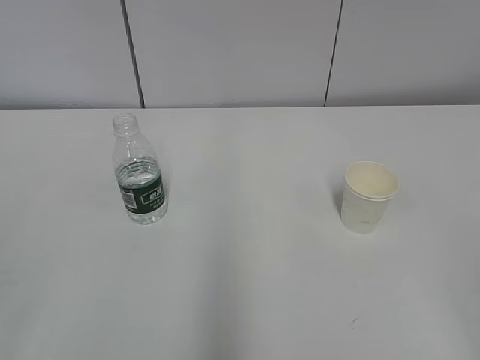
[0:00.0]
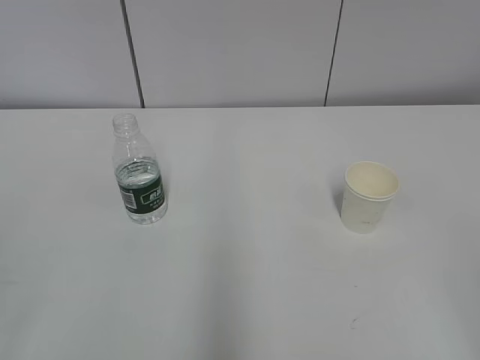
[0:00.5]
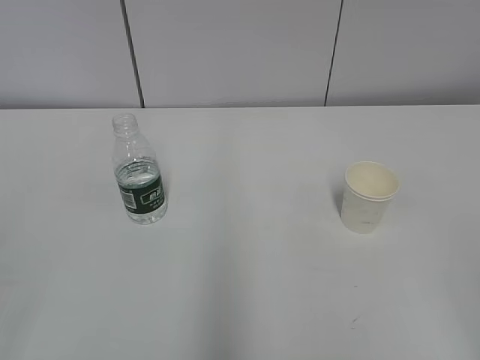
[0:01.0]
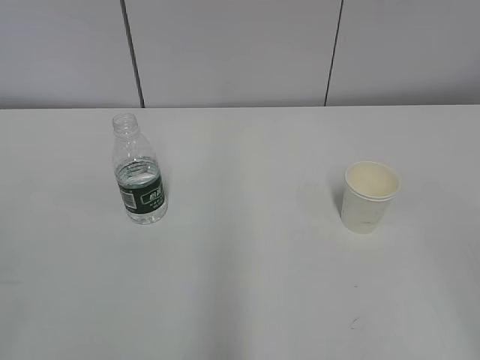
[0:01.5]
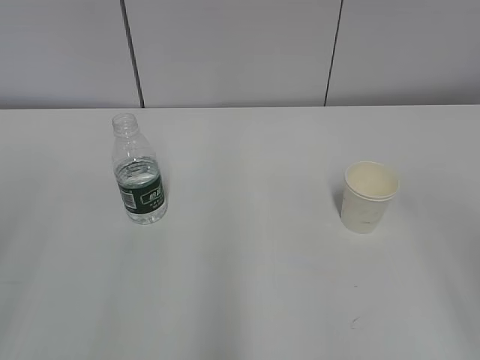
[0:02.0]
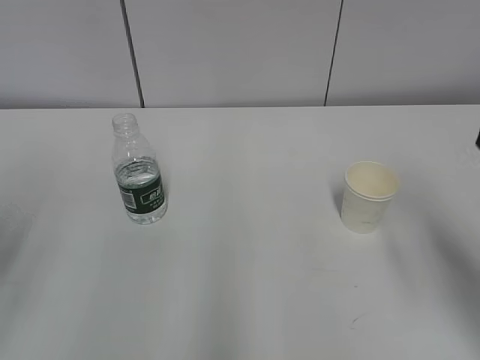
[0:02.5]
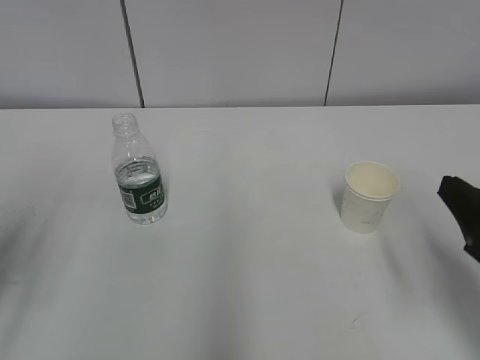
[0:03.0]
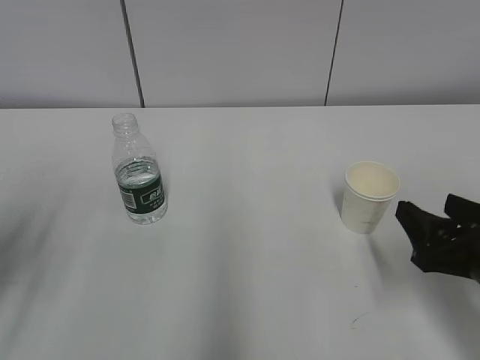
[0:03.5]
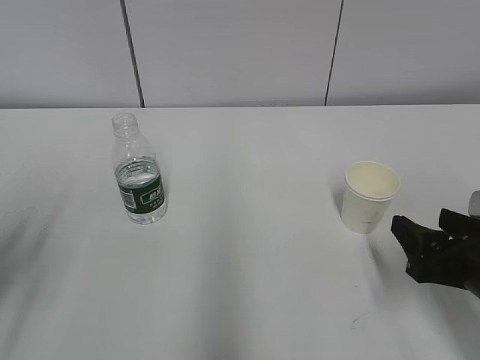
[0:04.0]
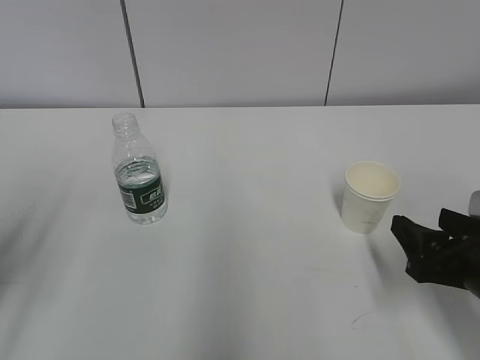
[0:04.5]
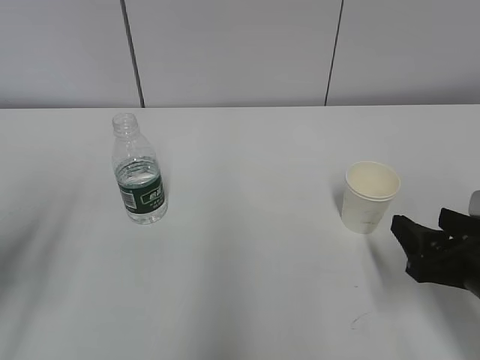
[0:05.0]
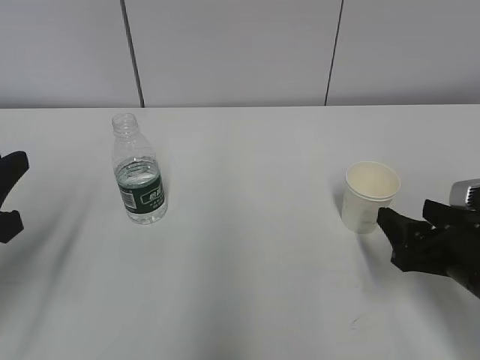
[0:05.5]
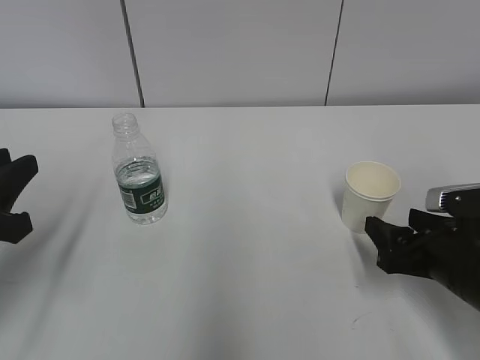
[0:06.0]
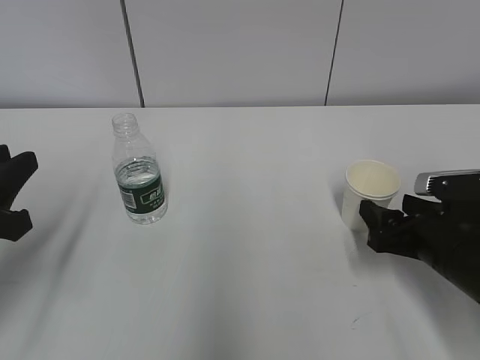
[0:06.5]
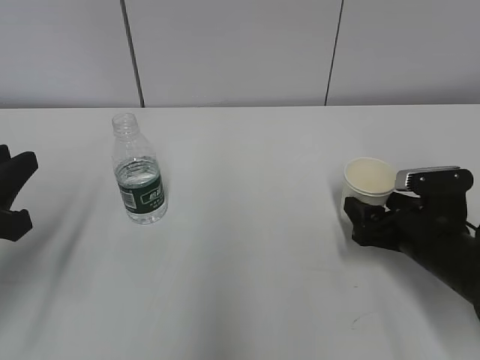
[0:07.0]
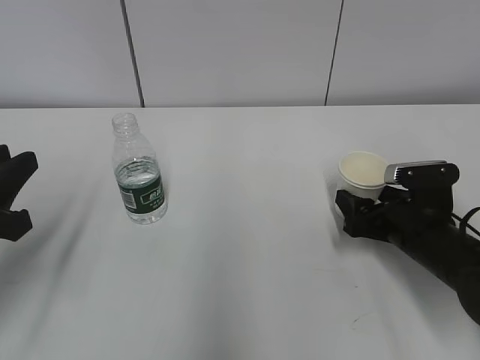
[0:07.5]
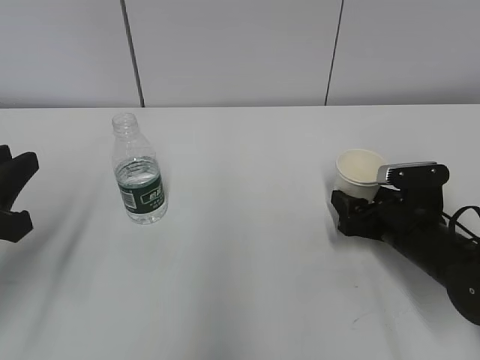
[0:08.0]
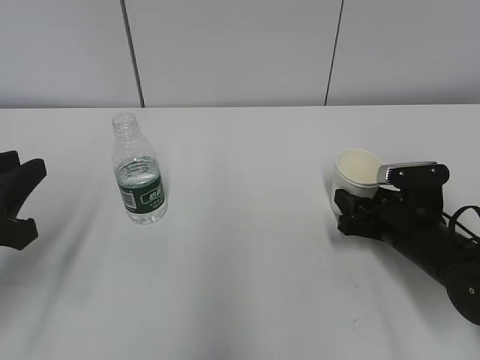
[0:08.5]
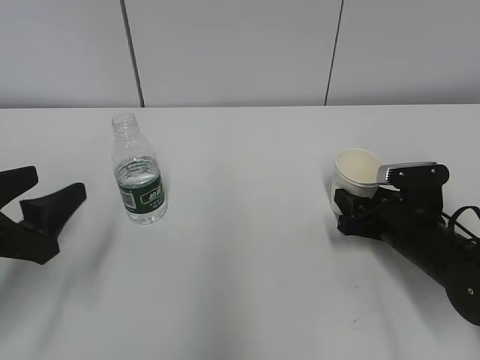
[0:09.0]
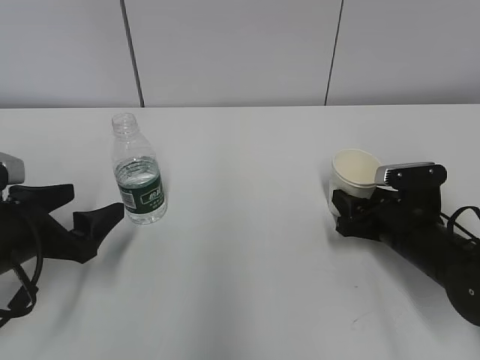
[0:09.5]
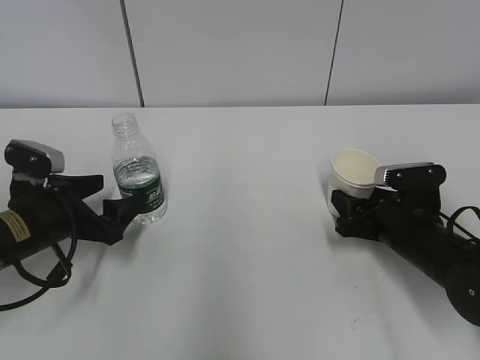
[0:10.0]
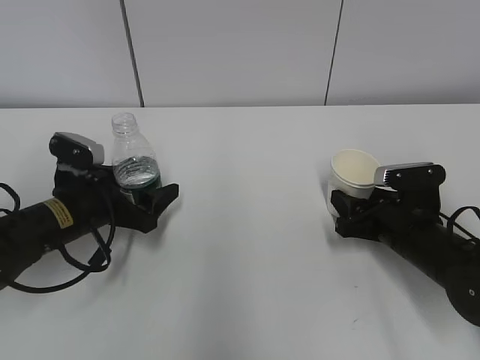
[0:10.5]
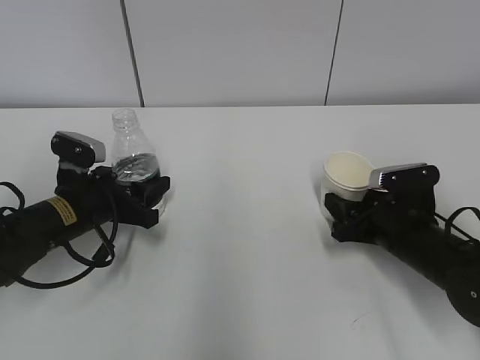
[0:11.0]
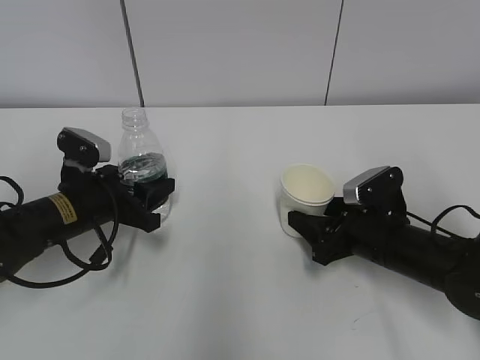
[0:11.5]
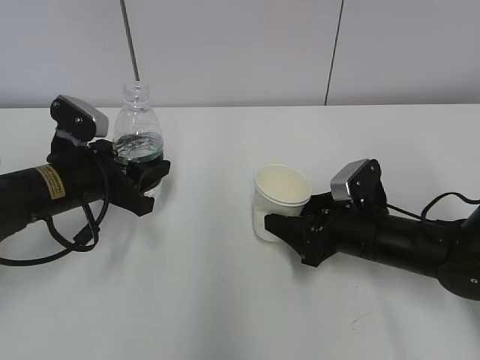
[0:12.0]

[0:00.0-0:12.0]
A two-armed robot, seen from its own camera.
Step, 0:00.0 to 0:09.5: Grab the water bottle with the left hand.
0:02.0 to 0:04.0: The right gripper shifts roughly 25 cm downward and forward; the left gripper travels forward and downward by approximately 15 cm.
0:04.0 to 0:06.0: The grippers stay close to where they were, moving slightly.
0:06.0 to 0:08.0: The right gripper travels forward by some 10 cm.
0:08.0 to 0:10.0: The left gripper is displaced forward and downward by about 15 cm, and opens its fingers. The right gripper closes up.
0:10.0 to 0:12.0: The right gripper travels to the left by about 5 cm. The left gripper shifts by roughly 5 cm, and closes up.

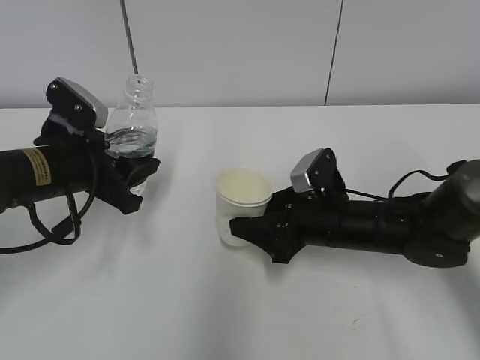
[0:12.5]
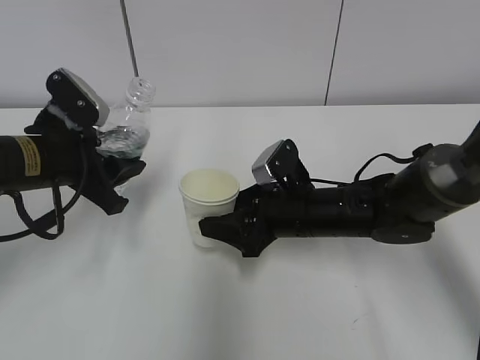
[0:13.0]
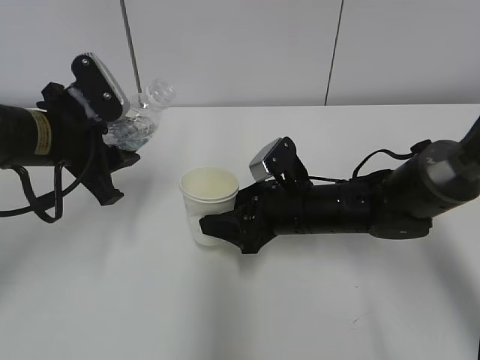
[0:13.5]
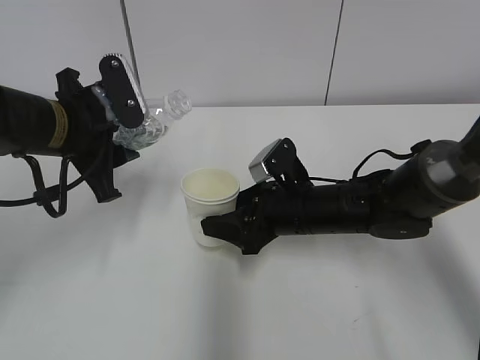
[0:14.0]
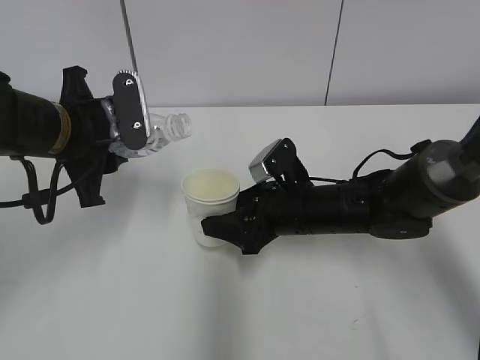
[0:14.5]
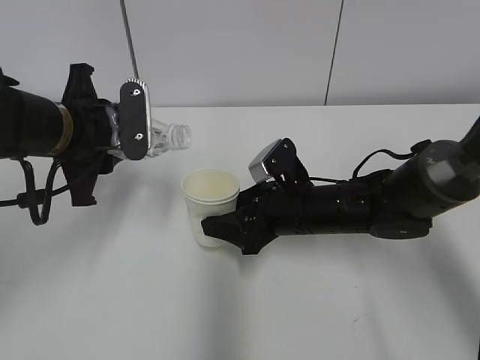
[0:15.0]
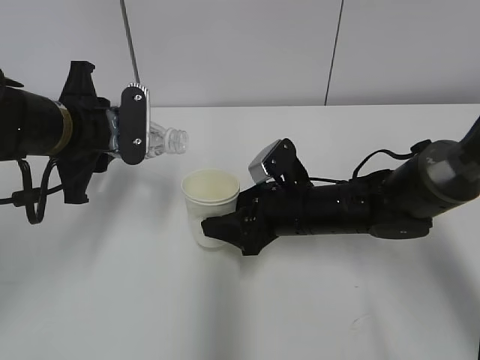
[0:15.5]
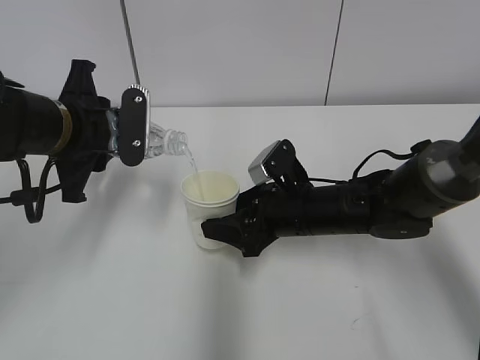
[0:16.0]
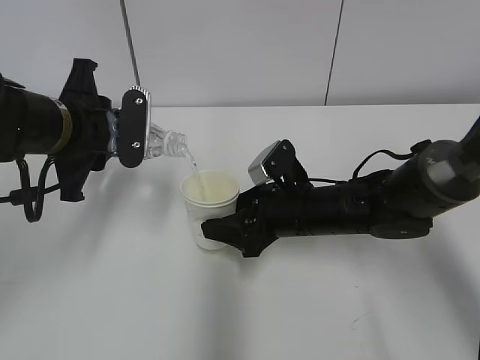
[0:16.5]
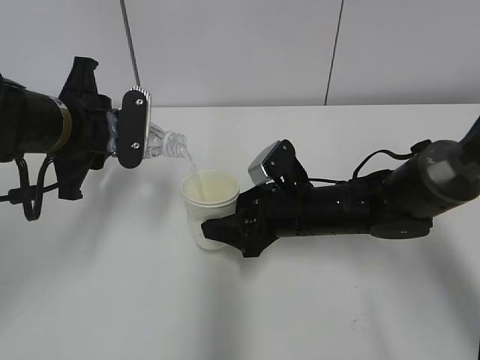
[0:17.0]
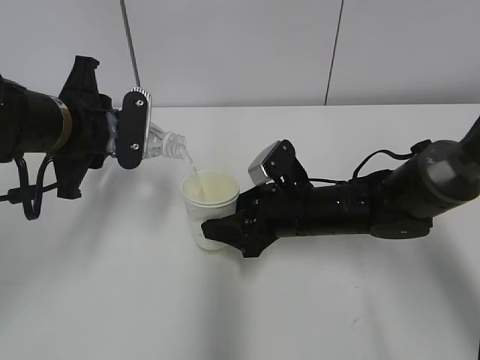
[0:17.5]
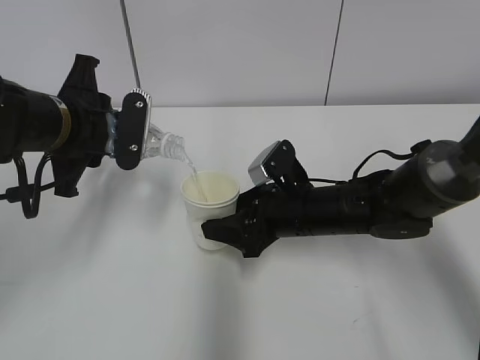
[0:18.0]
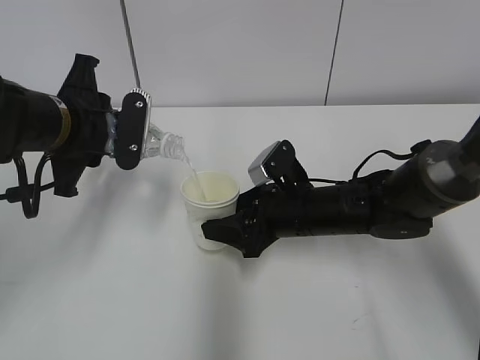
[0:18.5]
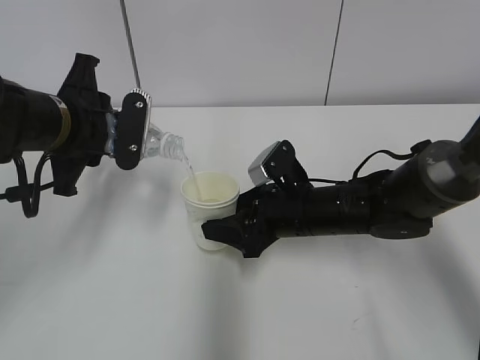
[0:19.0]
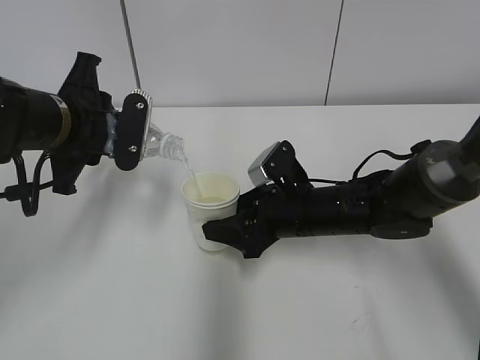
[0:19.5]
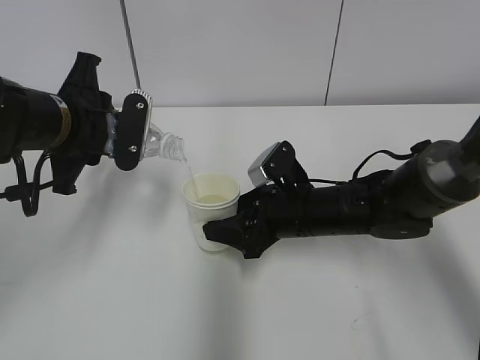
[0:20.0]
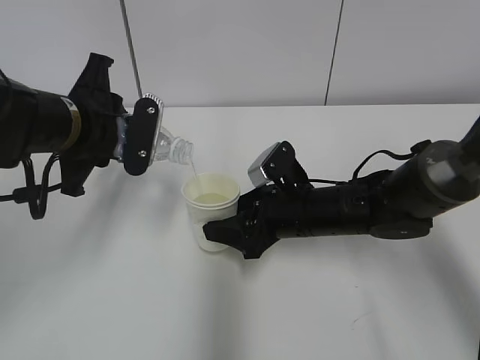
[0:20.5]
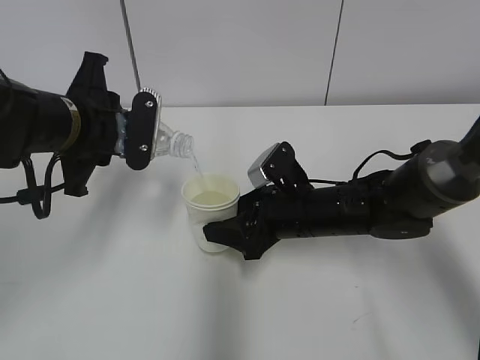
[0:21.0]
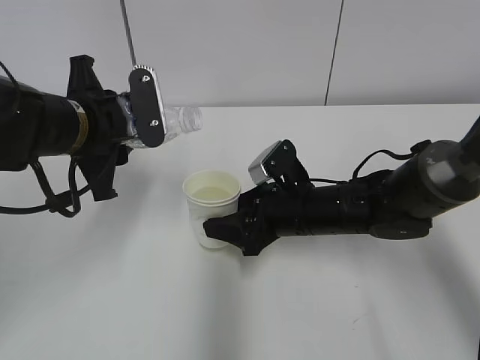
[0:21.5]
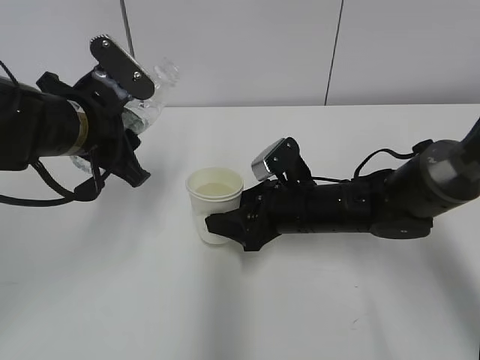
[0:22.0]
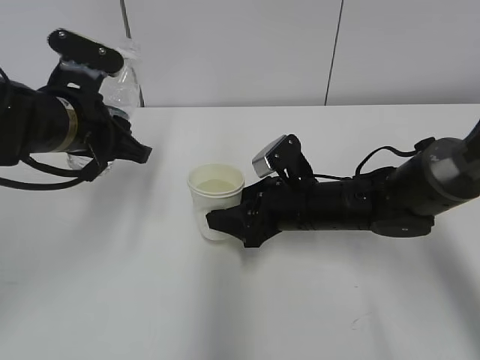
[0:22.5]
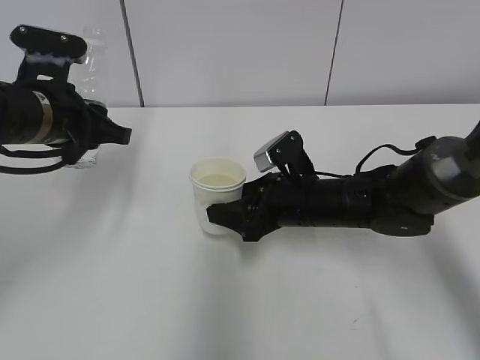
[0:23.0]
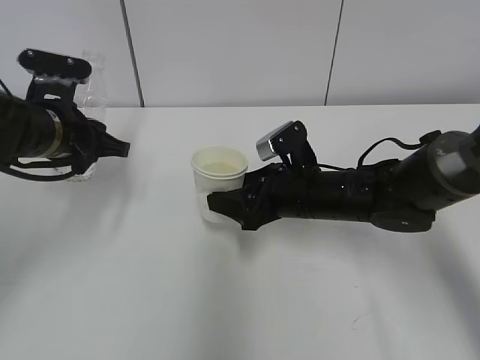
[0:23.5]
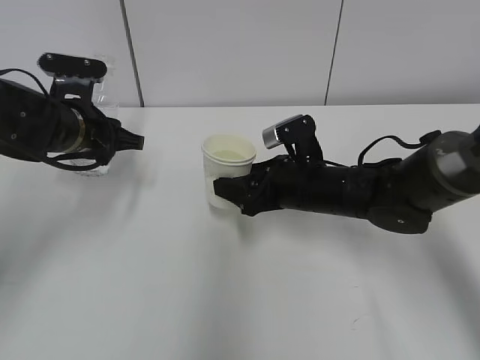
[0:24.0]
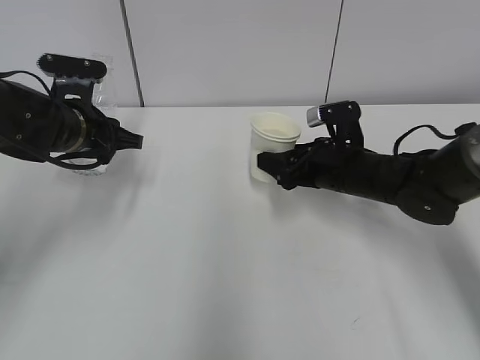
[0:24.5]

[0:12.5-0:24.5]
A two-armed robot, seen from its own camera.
Step, 0:13.5 to 0:17.5: Pour water with the left hand.
Step, 0:19.0 to 0:22.5: Place the paper cup with the right hand.
0:12.5 to 0:14.5: The left gripper shifts approximately 5 cm upward.
0:14.5 to 0:16.5: The grippers stay close to where they were, moving slightly.
0:16.5 to 0:18.5: Both grippers stay about where they are.
0:18.5 to 0:20.5: Both grippers stay put.
0:22.5 to 0:24.5: The left gripper shifts roughly 5 cm forward; the right gripper heads to the right, covering approximately 5 cm.

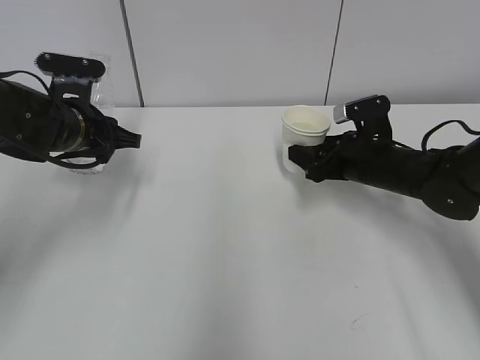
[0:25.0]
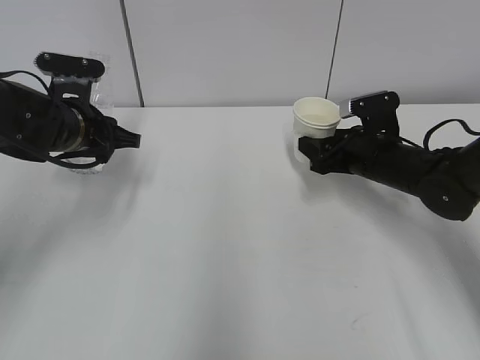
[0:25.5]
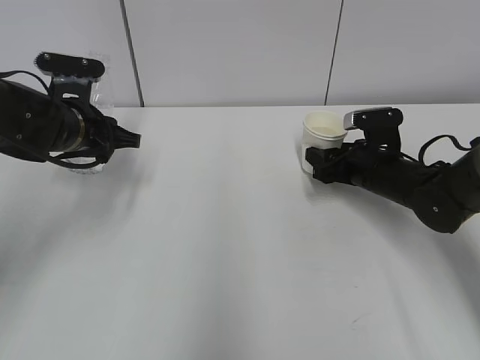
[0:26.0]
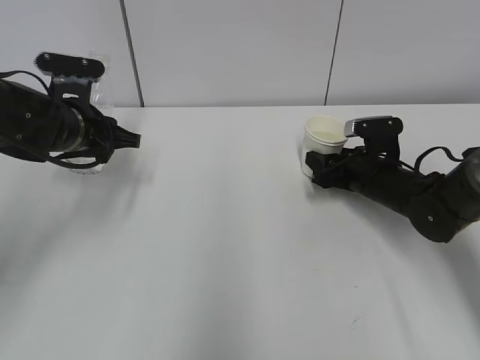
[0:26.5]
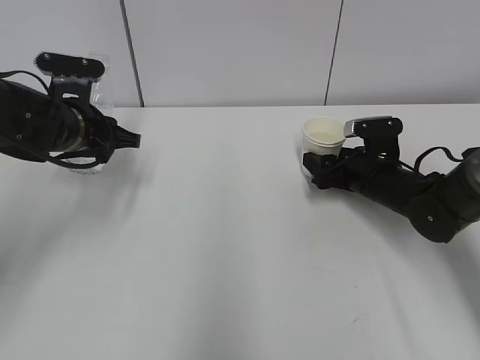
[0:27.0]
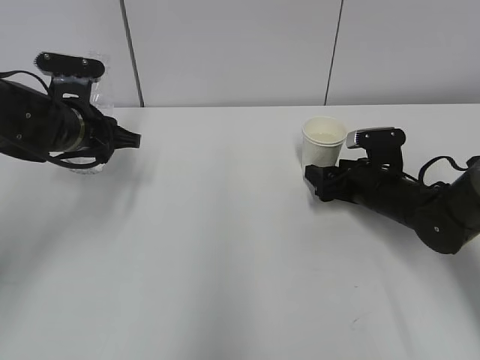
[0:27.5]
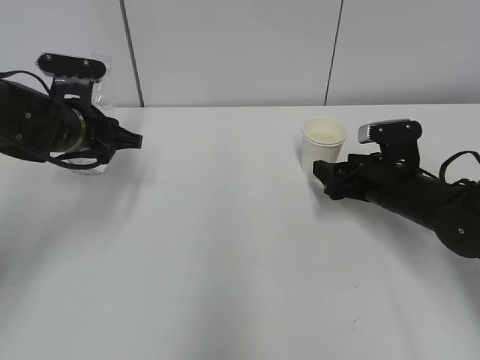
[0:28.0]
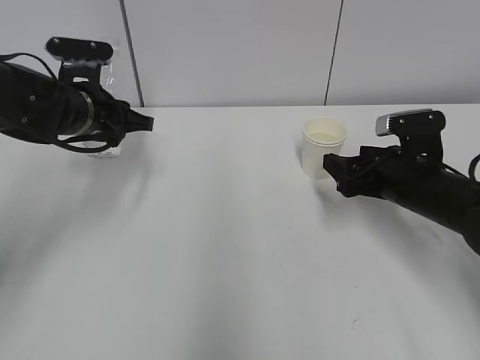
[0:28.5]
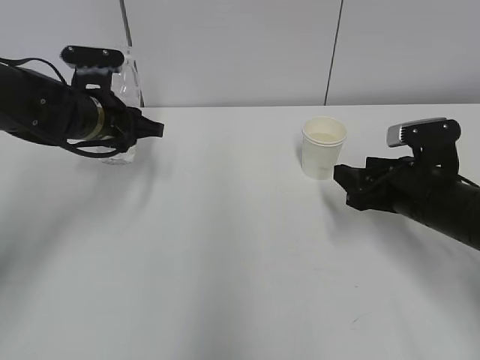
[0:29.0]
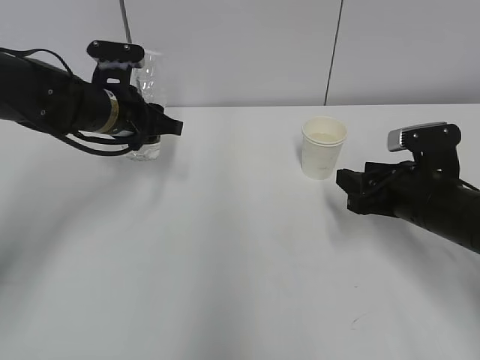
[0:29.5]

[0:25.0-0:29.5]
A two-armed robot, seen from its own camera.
0:25.0 to 0:27.0: The right gripper opens.
0:27.0 to 0:29.5: The right gripper shifts some 10 cm backward and upward, and closes.
